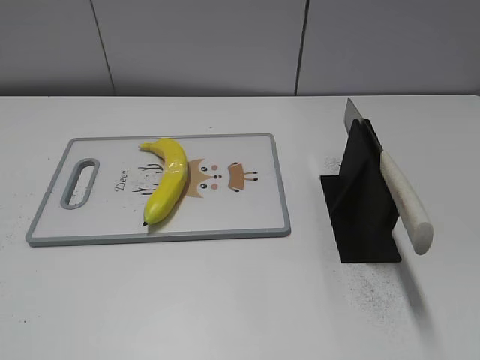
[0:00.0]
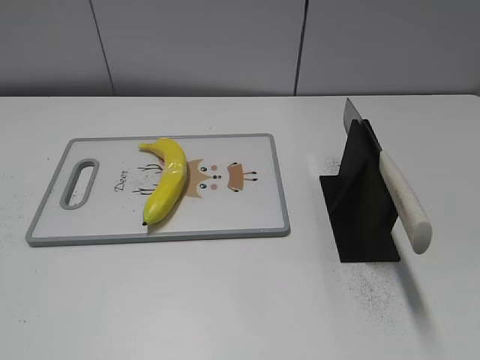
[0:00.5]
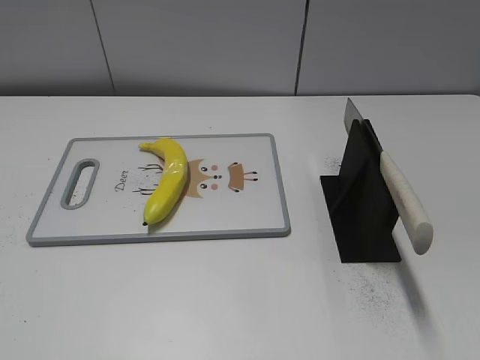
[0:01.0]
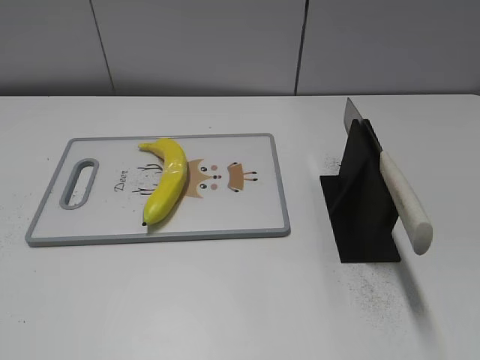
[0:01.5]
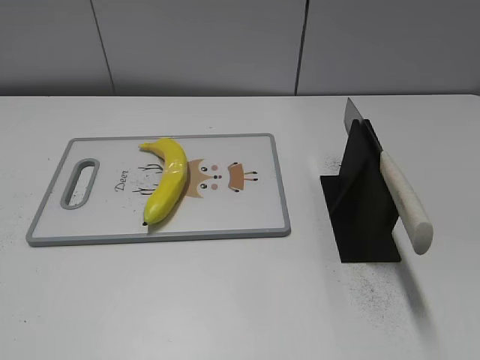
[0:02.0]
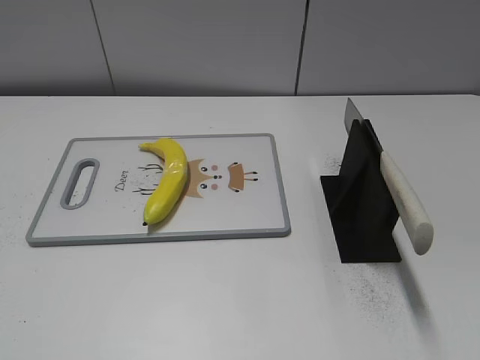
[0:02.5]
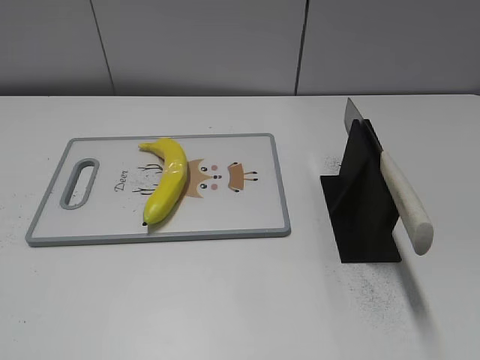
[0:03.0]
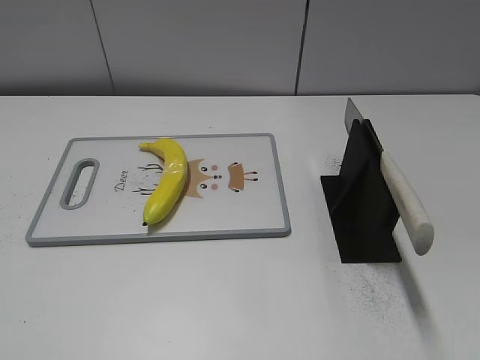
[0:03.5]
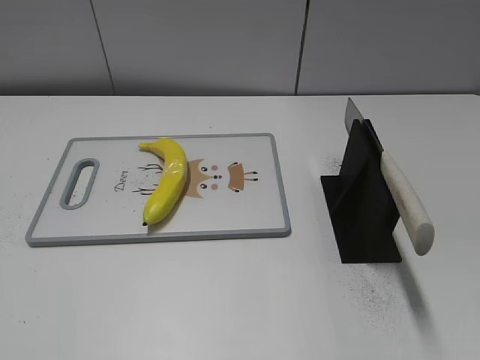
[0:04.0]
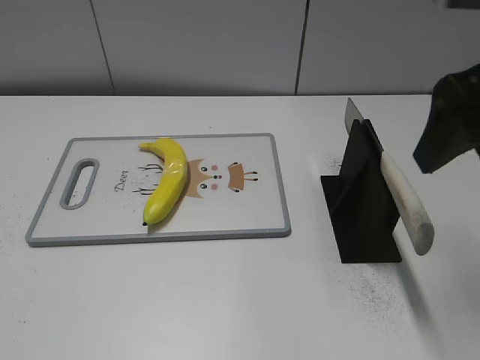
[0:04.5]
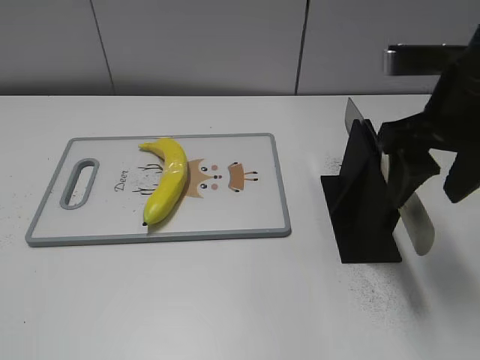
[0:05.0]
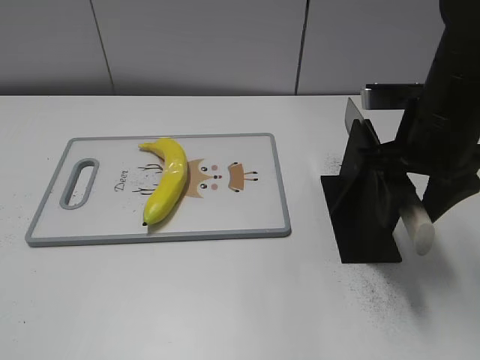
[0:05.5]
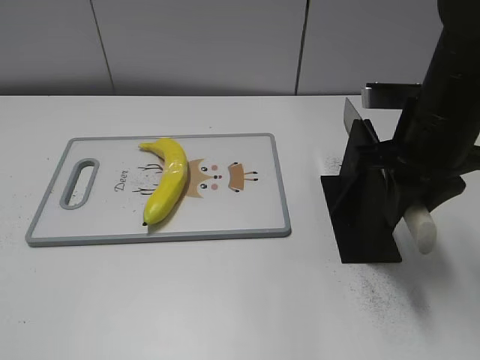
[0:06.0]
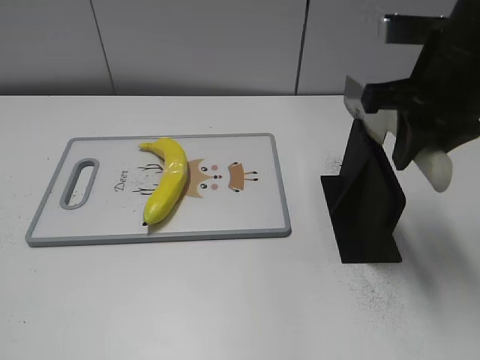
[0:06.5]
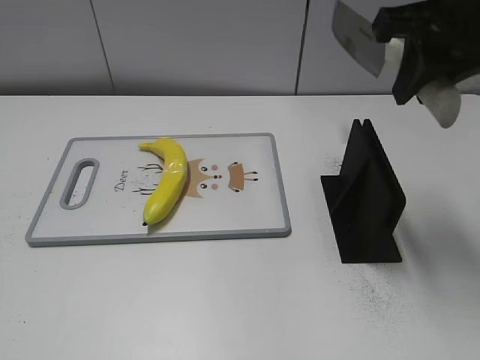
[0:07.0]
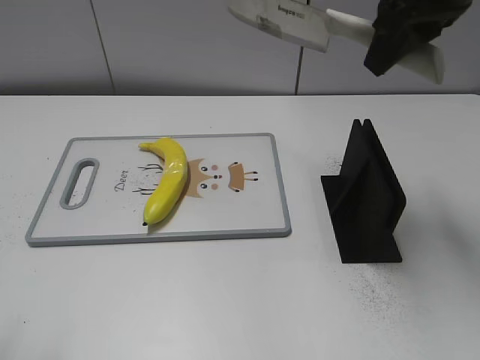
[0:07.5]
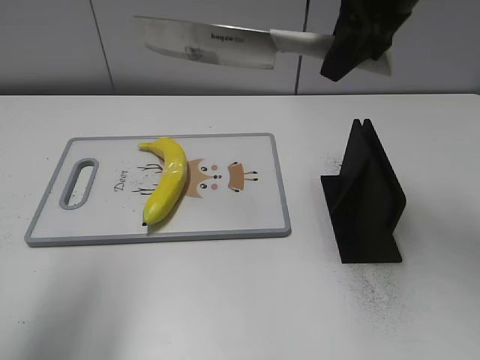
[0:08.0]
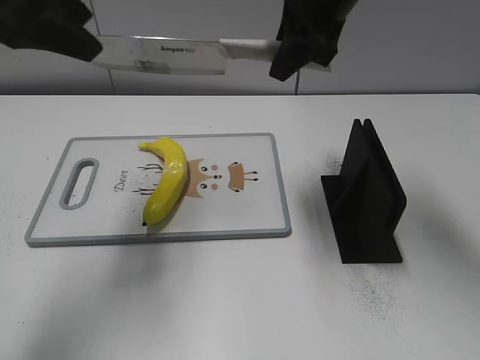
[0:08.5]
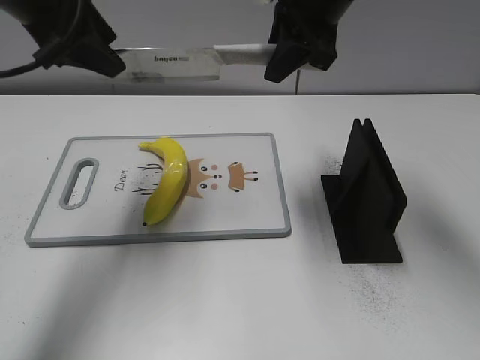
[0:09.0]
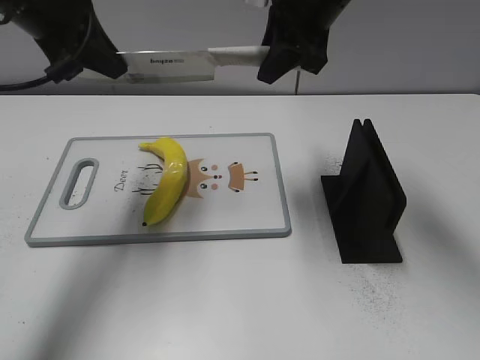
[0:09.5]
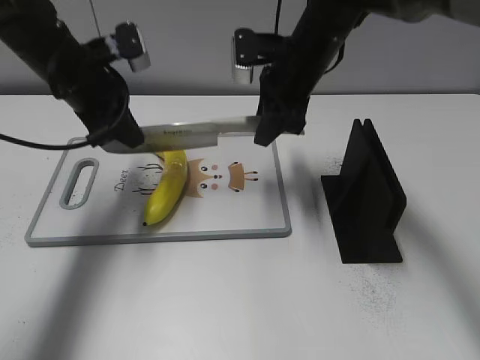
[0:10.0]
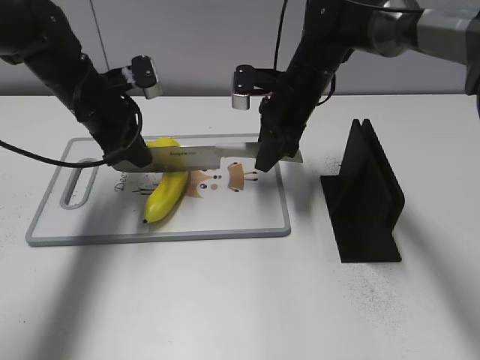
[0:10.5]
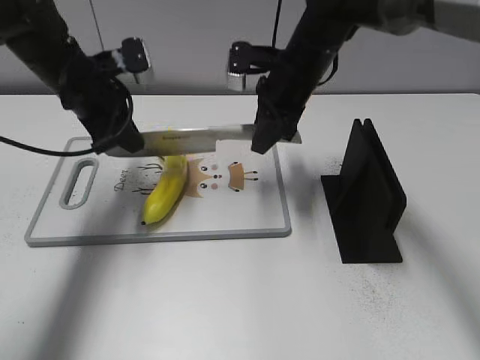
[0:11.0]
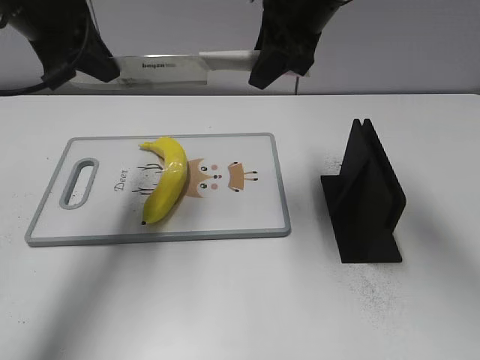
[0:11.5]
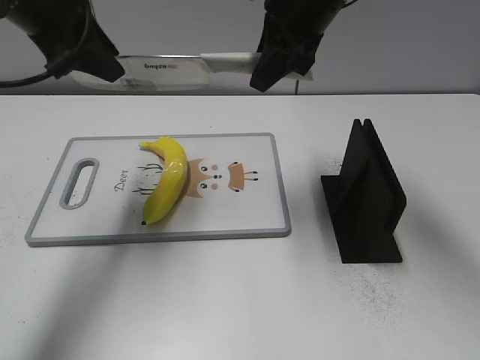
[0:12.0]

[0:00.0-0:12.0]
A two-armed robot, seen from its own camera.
Task of the whole recording: cut plastic banana.
Step, 0:00.0 to 0:07.0: Grab the knife handle with your right hand.
Step, 0:07.5 to 0:11.5: Lift the knife with your right hand.
0:04.0 to 0:06.0: The right gripper is displaced downward, forward and to the left by some 20 cm, and closes its fingers.
0:06.0 to 0:08.0: The right gripper moves upward and forward, approximately 15 cm; the left gripper moves forward and upward, some 25 cm.
0:08.0 to 0:10.0: The left gripper heads forward and downward, covering some 25 cm, and closes its fingers. Meanwhile the right gripper shifts roughly 15 cm downward, forward and to the left.
0:10.0 to 0:12.0: Both grippers travel together upward, approximately 10 cm. The left gripper opens up.

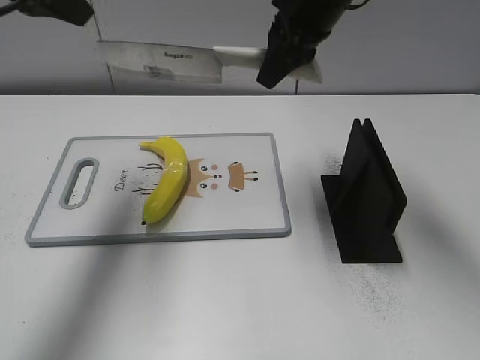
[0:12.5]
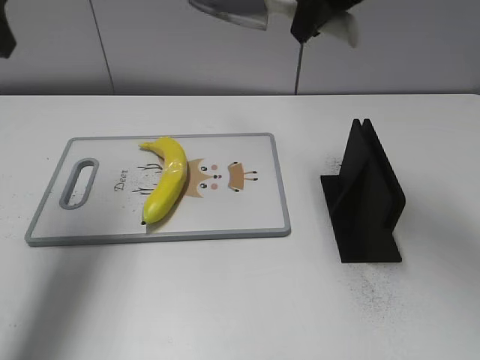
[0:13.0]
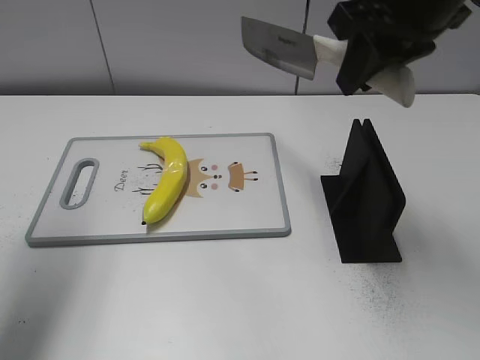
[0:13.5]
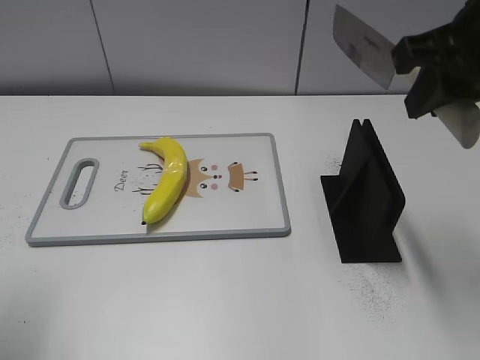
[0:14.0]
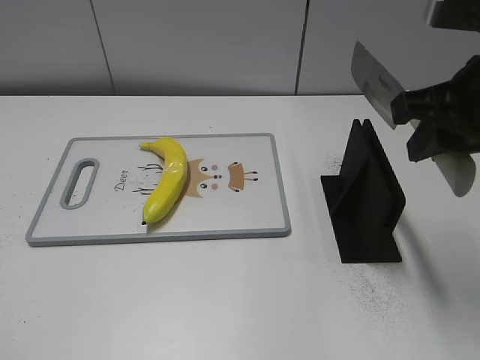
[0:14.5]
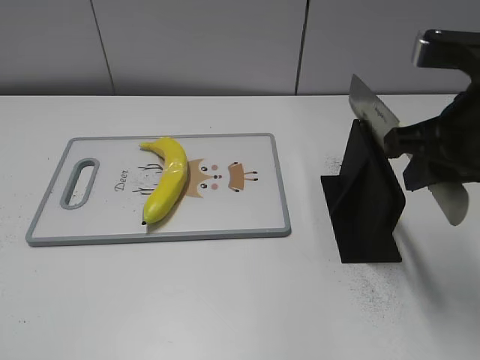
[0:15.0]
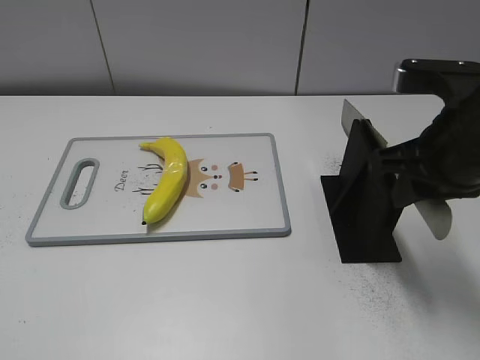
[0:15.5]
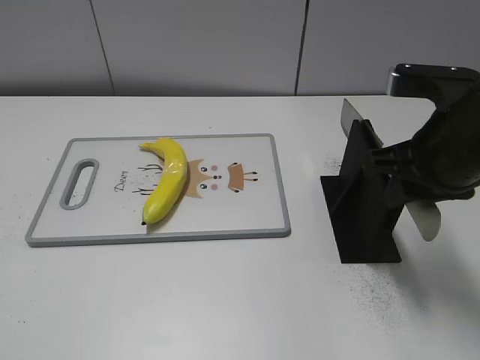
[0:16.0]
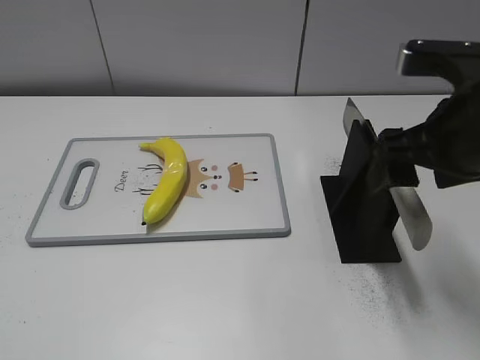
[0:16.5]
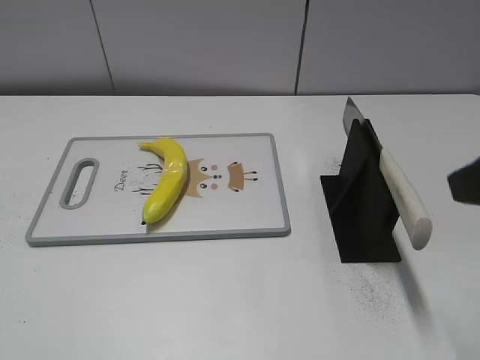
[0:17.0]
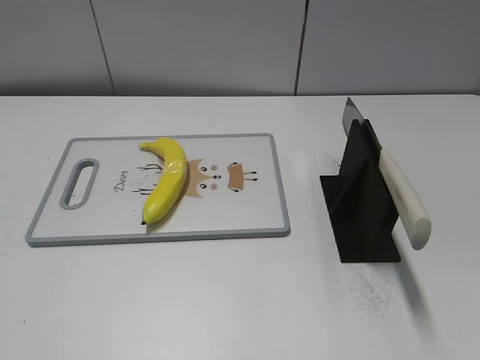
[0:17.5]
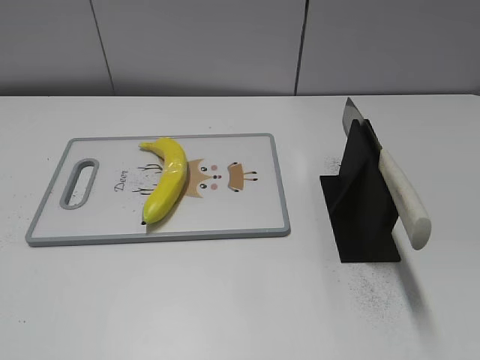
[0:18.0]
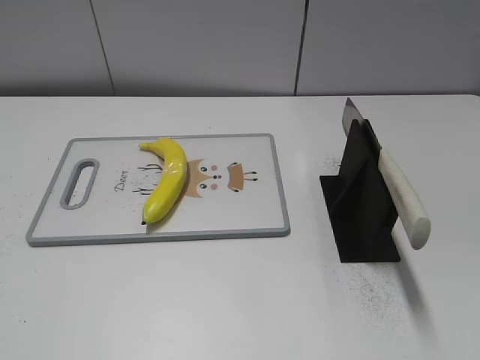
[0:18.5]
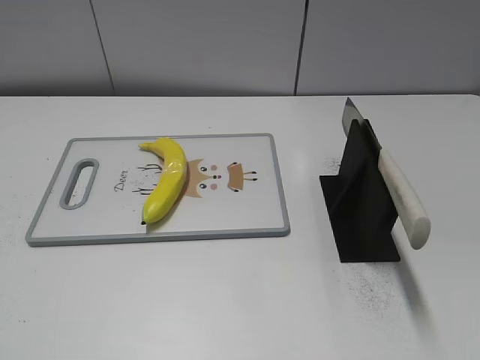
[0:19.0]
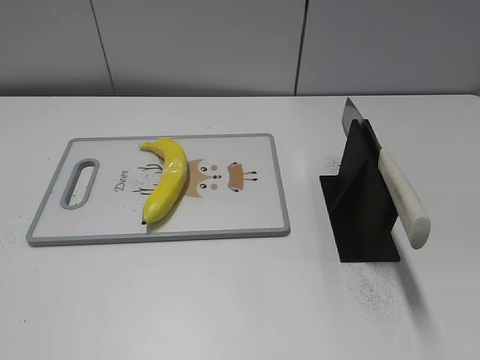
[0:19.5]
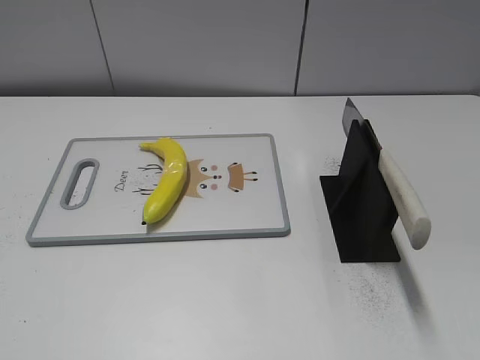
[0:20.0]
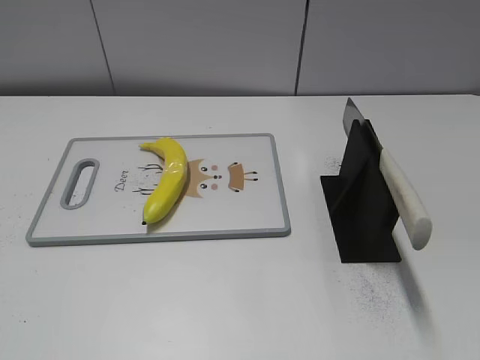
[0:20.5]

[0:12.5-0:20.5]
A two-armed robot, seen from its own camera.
Task of the whole recording: cut plastic banana.
Step, 0:12.5 to 0:13.5: Cut the banana with your right hand.
Step, 0:14.0 to 0:14.5: Lift the knife with your right hand.
Step, 0:15.5 to 0:20.0: Place the knife on the storage rack with your right hand.
0:12.5 to 0:14.5: The right gripper heads backward and to the right, covering about 20 cm, while the left gripper heads backward, covering roughly 30 cm.
0:14.5 to 0:16.5: The right gripper opens.
0:16.5 to 0:18.5: The right gripper shifts some 25 cm backward and to the right.

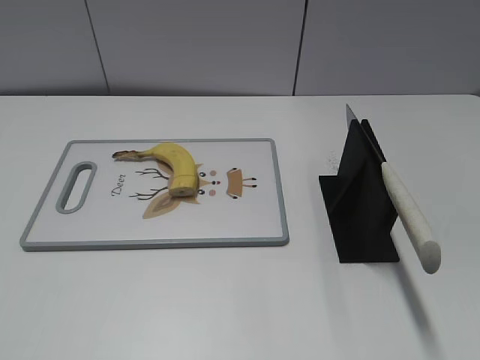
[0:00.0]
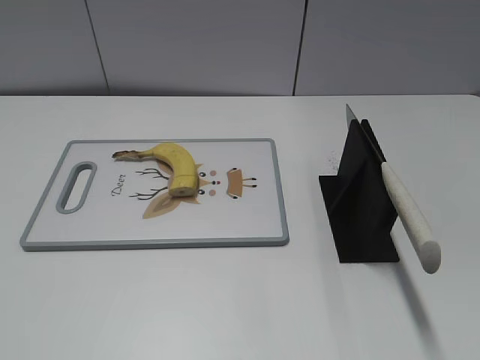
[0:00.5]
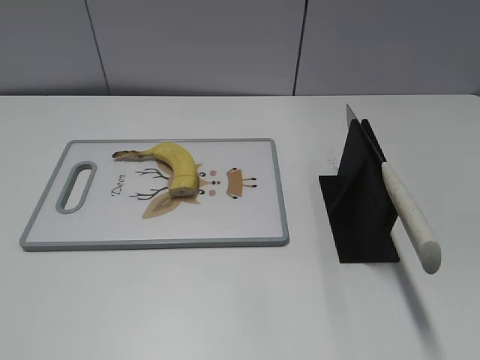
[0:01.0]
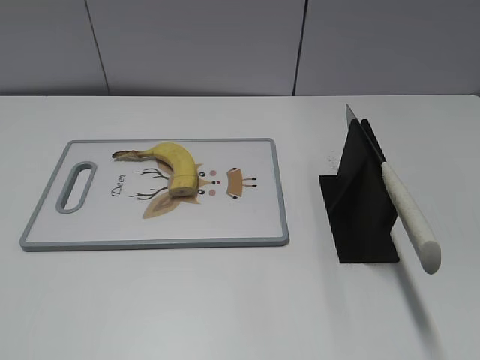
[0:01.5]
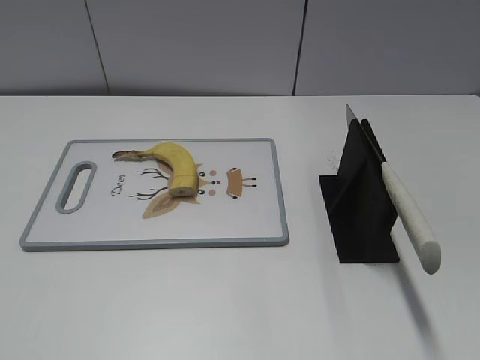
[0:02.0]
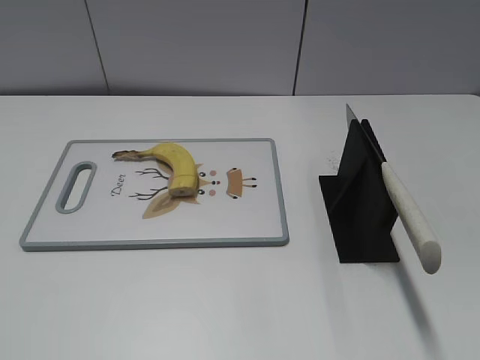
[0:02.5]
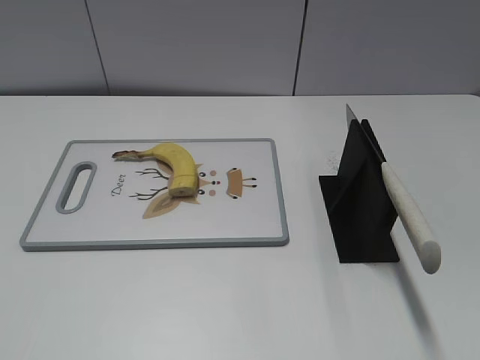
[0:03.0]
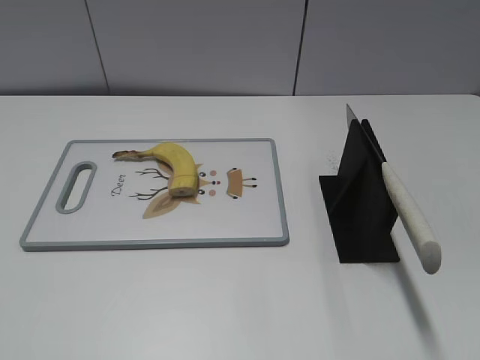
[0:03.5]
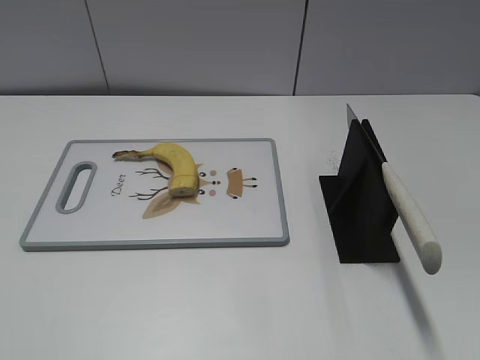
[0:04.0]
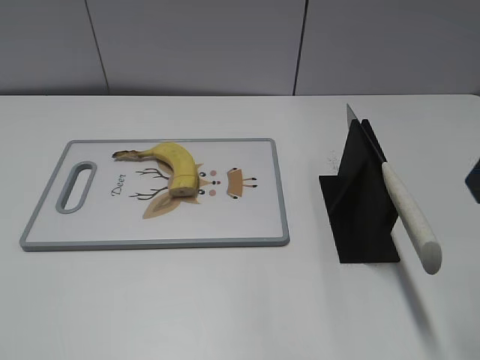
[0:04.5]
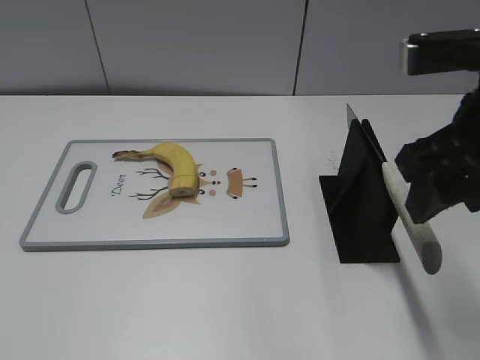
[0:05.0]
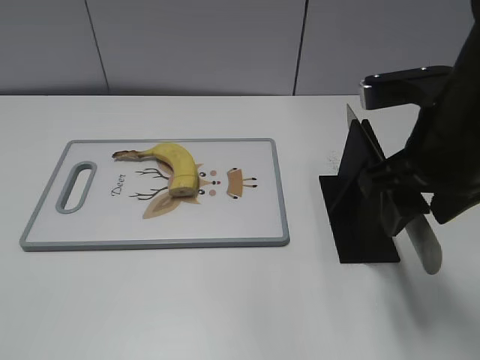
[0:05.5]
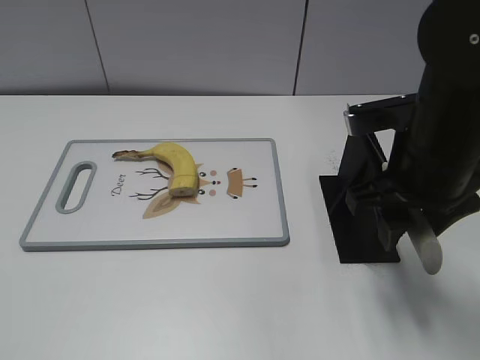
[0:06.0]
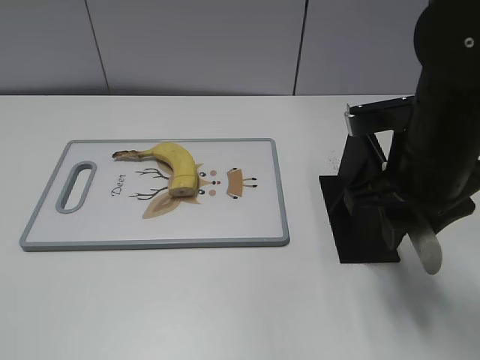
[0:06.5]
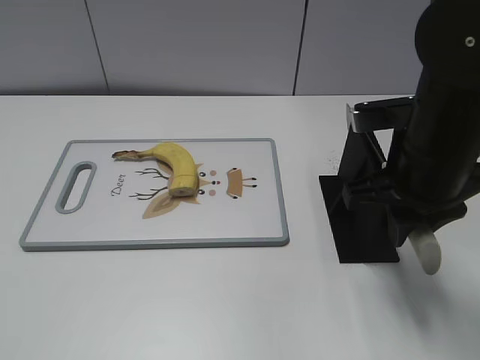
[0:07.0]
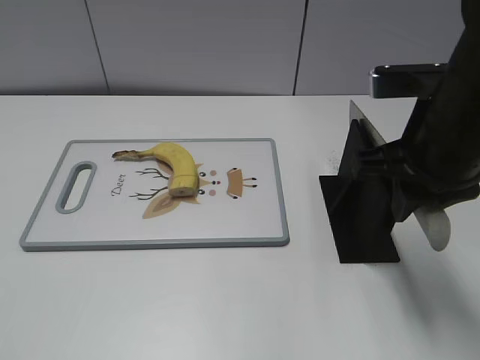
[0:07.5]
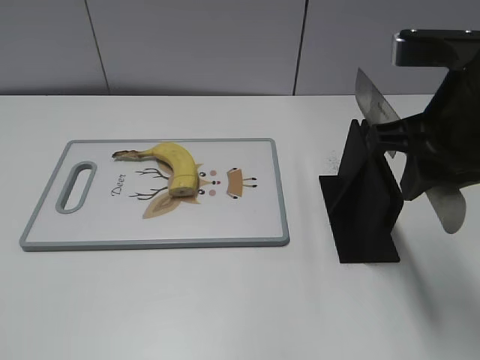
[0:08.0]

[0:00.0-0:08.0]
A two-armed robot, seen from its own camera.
Task of the whole recording: cut banana.
0:04.0 to 0:06.0: The right gripper heads forward, downward and to the left, covering approximately 20 cm.
0:06.0 to 0:08.0: The right gripper shifts some 5 cm upward, and closes its fingers.
